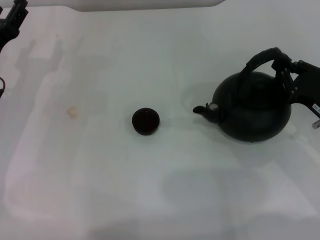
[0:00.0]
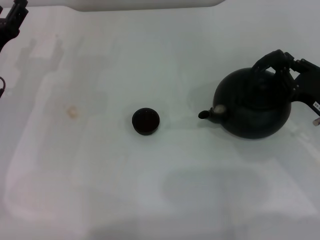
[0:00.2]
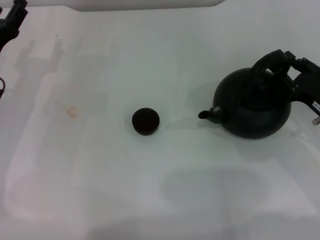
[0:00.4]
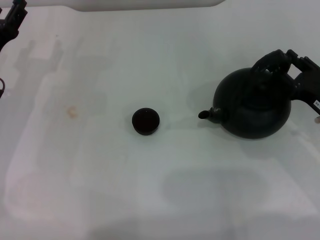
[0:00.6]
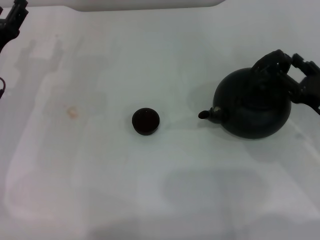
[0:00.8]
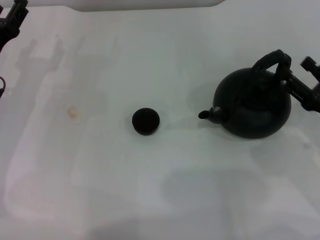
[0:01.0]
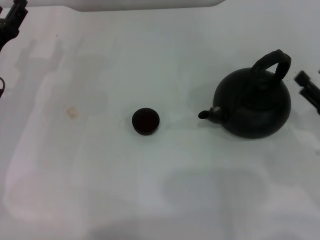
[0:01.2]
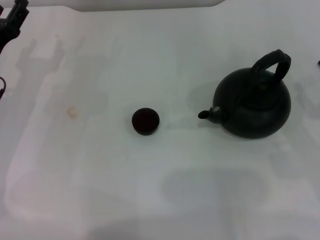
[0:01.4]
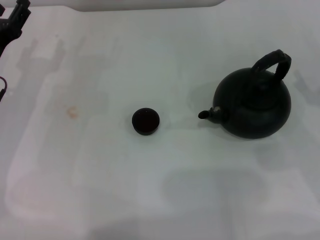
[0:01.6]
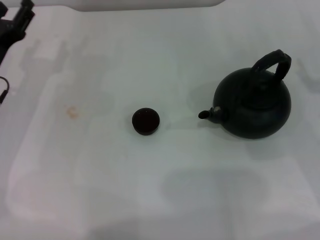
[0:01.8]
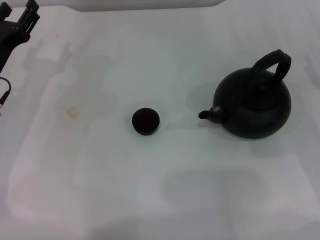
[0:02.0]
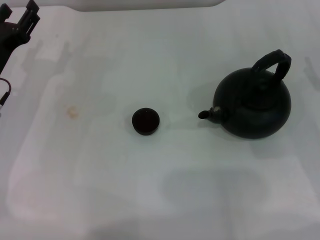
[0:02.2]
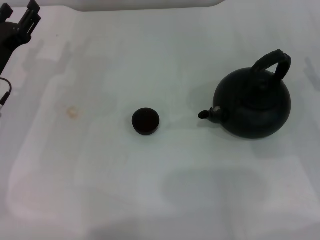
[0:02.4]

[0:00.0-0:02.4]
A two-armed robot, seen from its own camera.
Task of the whole recording: Grasp the handle of the teapot with one hand and pour tea into the teacup.
0:00.0 to 0:01.2: The right gripper shifts by about 5 cm, and opens up.
0:01.2 to 0:02.4: The right gripper travels forward by about 5 cm.

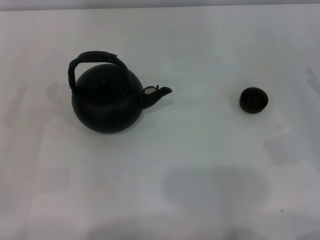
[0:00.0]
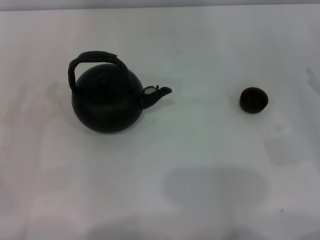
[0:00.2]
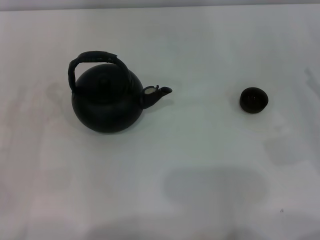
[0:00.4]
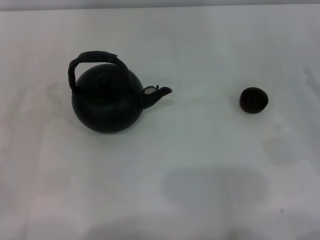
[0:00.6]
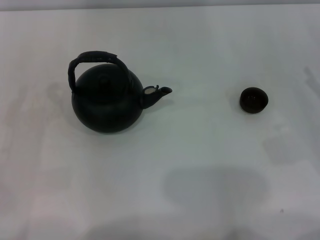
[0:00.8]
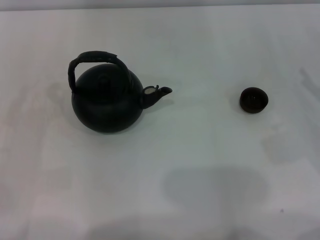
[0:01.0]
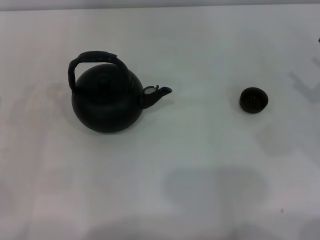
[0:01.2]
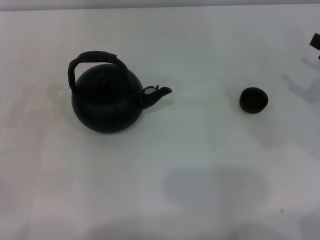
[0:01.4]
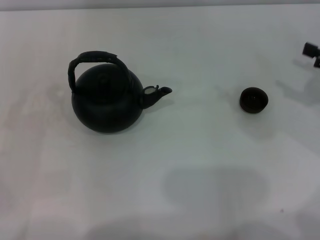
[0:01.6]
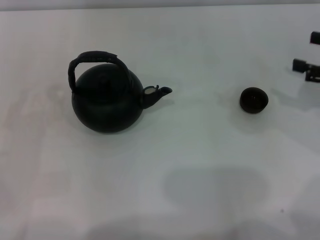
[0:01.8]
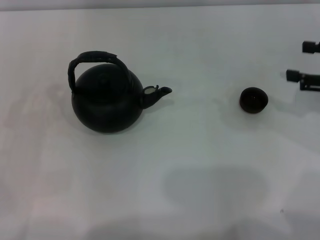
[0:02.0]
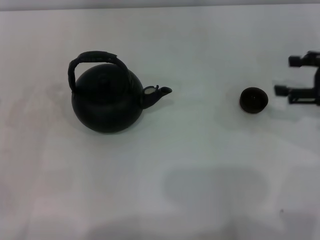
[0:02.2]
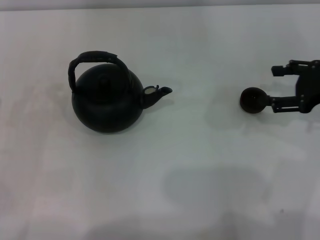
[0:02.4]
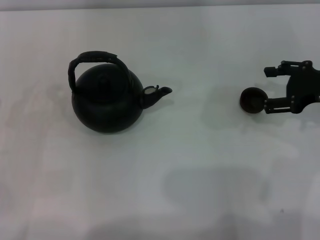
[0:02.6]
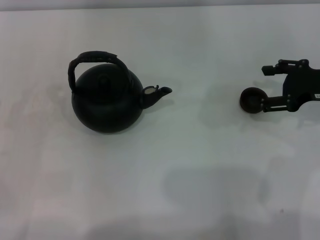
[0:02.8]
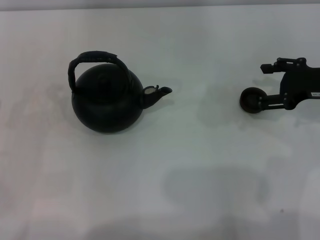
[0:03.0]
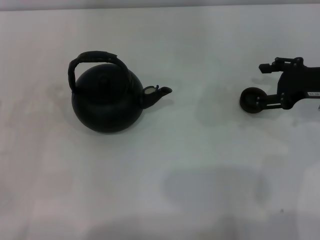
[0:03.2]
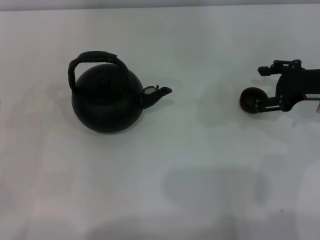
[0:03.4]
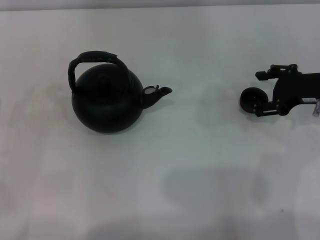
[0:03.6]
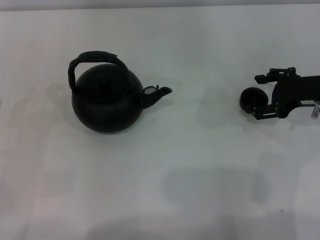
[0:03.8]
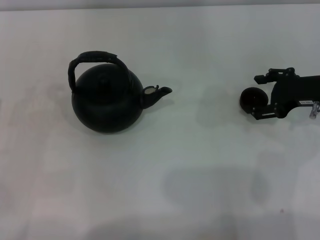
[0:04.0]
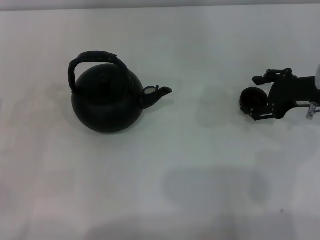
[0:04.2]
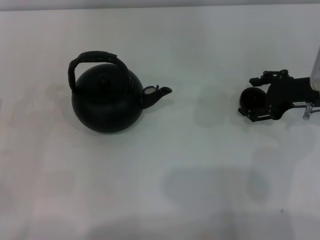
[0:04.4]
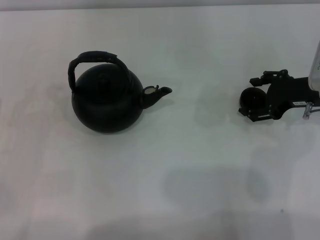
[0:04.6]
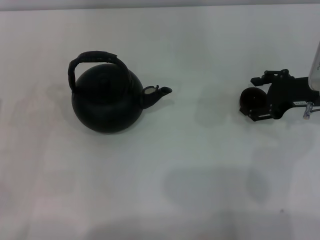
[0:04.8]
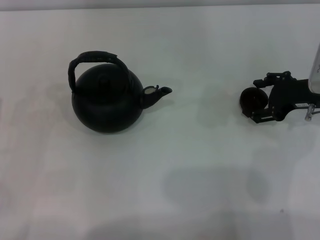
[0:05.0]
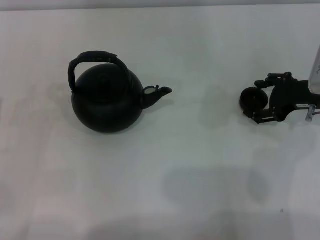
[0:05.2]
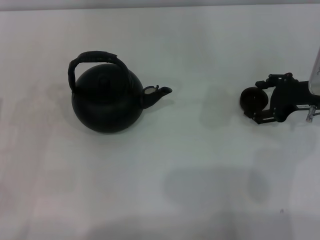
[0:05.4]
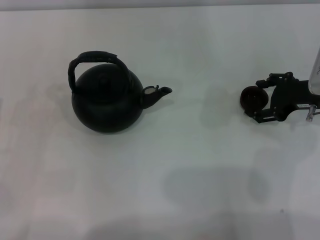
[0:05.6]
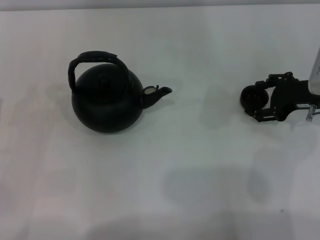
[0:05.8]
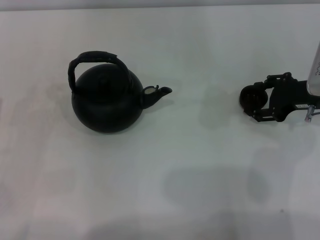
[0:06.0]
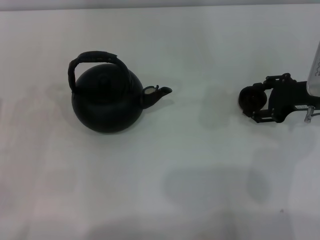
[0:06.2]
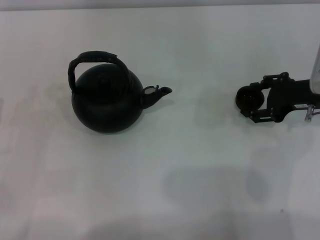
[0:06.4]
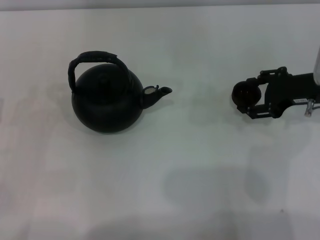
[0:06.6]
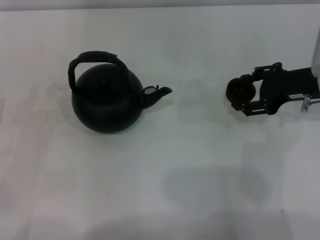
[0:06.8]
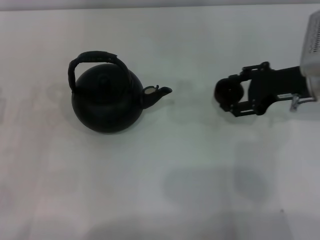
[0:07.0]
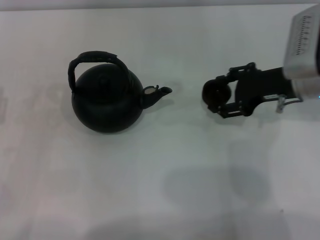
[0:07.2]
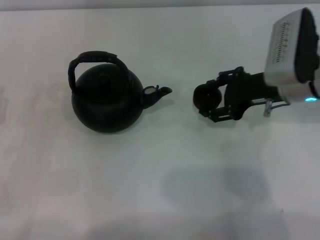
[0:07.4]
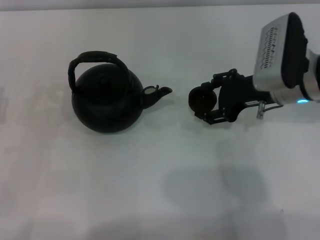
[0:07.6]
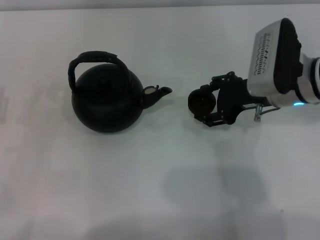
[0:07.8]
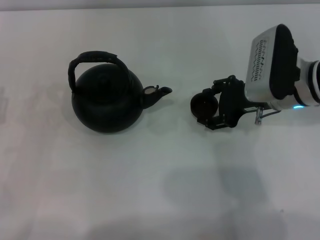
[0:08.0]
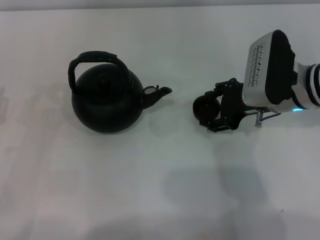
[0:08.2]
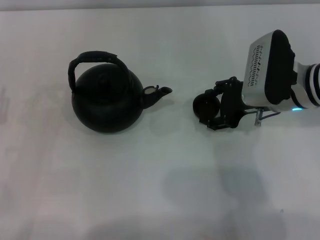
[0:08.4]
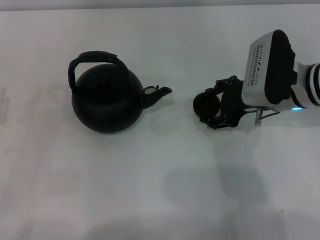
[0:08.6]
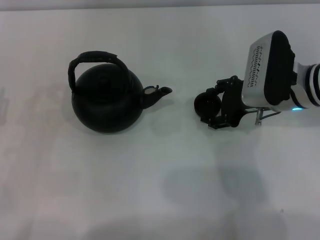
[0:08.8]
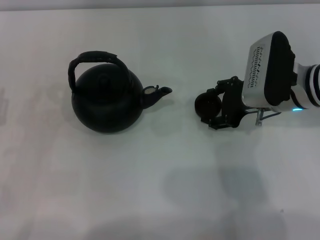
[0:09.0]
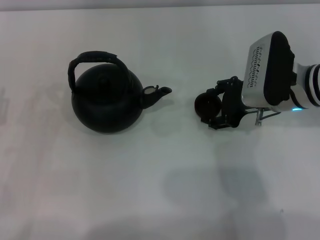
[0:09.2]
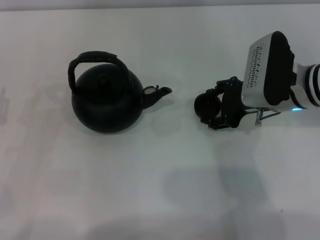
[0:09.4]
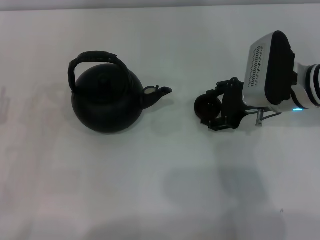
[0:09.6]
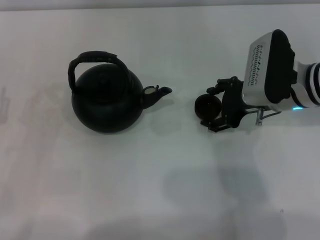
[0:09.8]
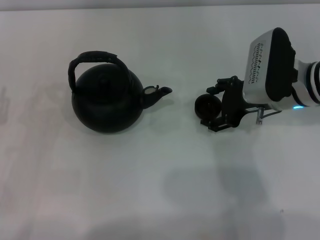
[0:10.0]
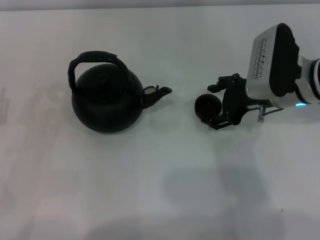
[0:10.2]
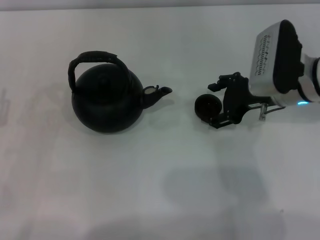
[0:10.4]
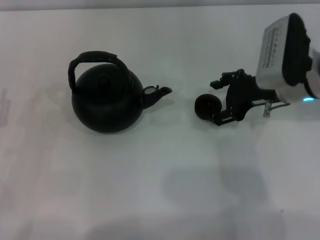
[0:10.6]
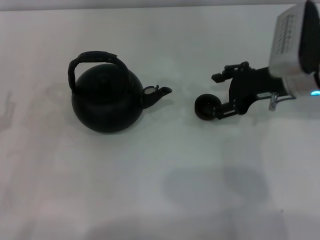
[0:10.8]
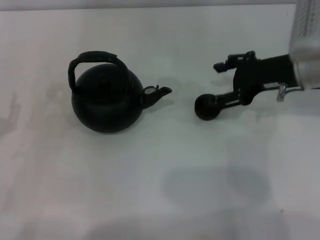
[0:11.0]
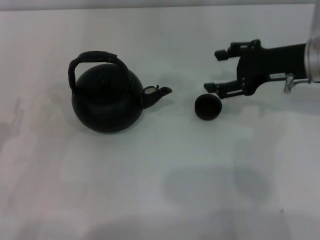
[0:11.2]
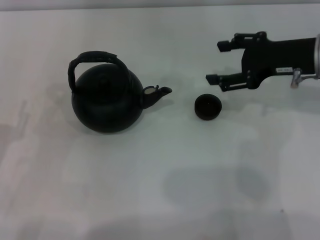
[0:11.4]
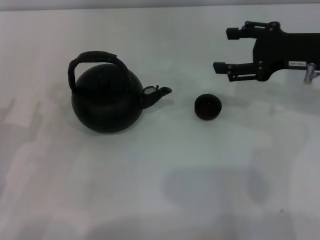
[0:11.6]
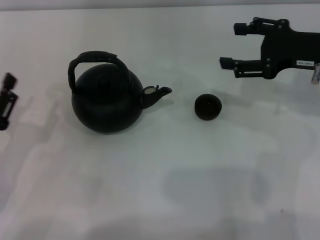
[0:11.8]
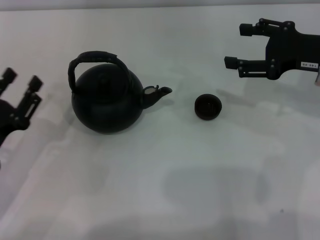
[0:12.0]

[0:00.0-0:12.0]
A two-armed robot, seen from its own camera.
Task of the whole recording: Grasp the handle of the teapot with one hand and pour tea into the teacup.
Step, 0:00.0 to 0:06.6: Pick up the teacup with the right gripper.
Step, 0:07.0 to 0:11.2: Place the teacup in the center of view with the right gripper.
0:01.6 to 0:03.0: The right gripper goes some 5 cm to the left.
0:03.0 to 0:04.4: The grippers make only small movements.
0:04.4 to 0:06.0: The right gripper closes.
0:06.0 to 0:07.6: The right gripper heads to the left, covering some 10 cm, and closes its fingers.
0:07.6 to 0:09.0: The grippers stay close to where they were, moving slightly.
0:09.0 to 0:10.4: The right gripper opens its fingers.
0:10.4 to 0:12.0: The right gripper moves to the right, approximately 10 cm.

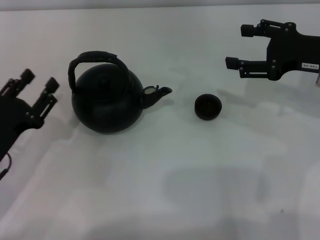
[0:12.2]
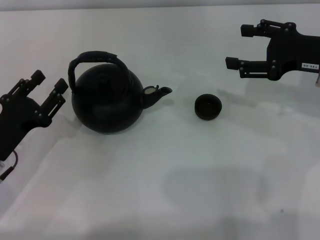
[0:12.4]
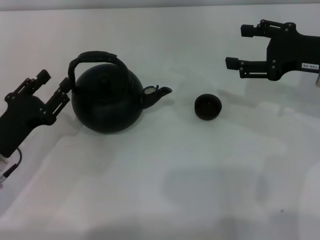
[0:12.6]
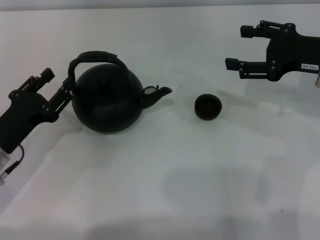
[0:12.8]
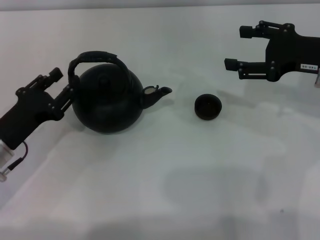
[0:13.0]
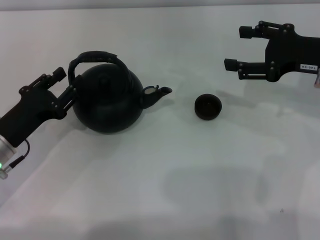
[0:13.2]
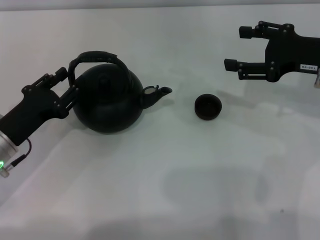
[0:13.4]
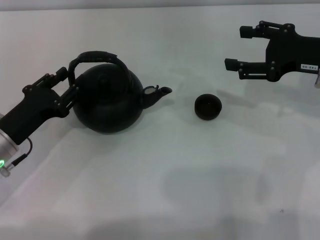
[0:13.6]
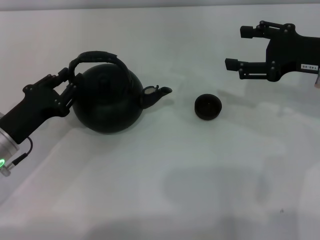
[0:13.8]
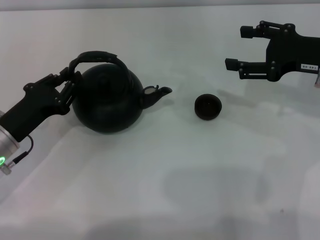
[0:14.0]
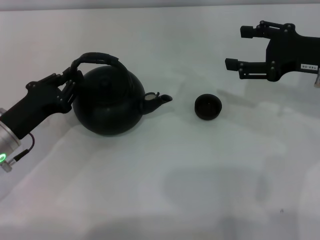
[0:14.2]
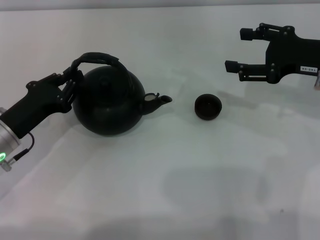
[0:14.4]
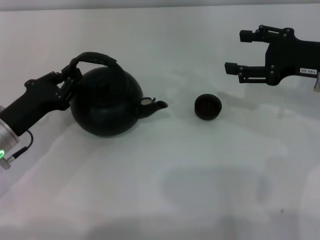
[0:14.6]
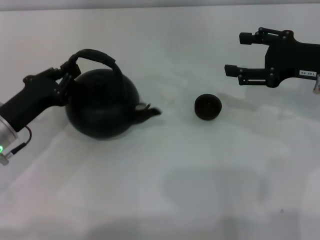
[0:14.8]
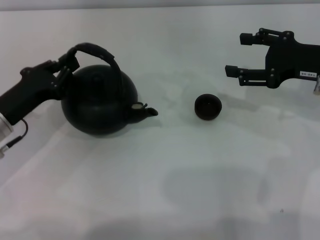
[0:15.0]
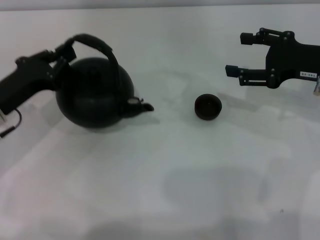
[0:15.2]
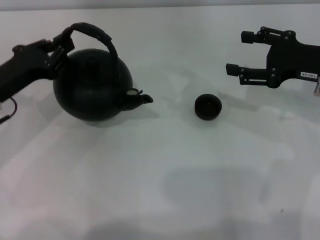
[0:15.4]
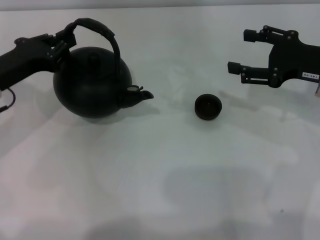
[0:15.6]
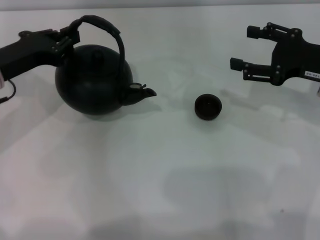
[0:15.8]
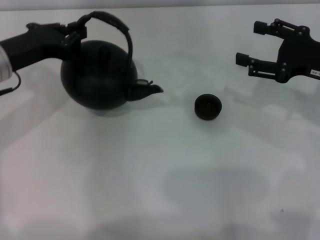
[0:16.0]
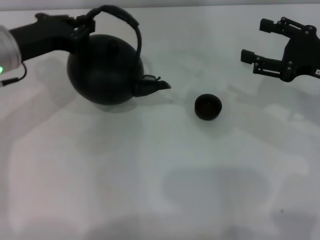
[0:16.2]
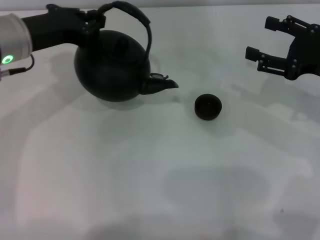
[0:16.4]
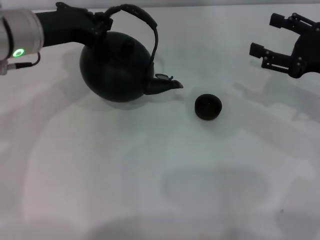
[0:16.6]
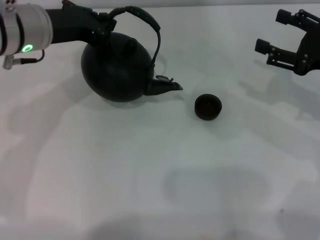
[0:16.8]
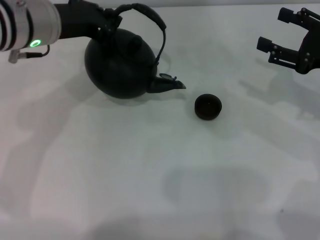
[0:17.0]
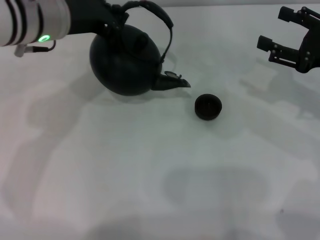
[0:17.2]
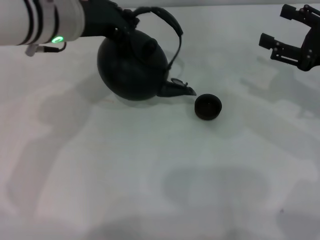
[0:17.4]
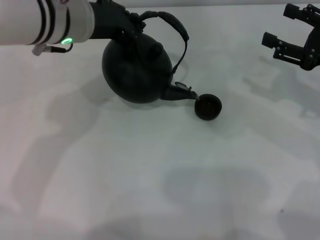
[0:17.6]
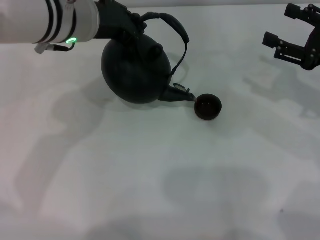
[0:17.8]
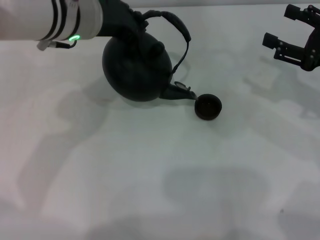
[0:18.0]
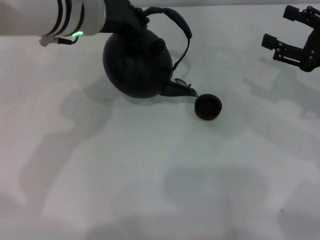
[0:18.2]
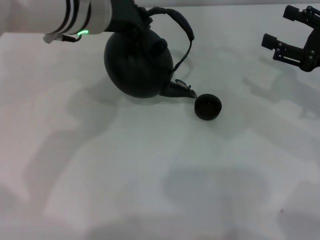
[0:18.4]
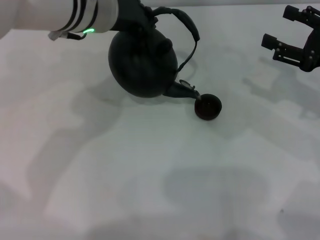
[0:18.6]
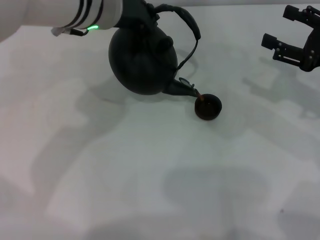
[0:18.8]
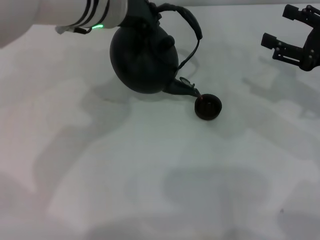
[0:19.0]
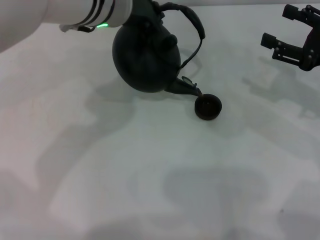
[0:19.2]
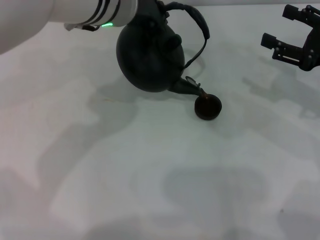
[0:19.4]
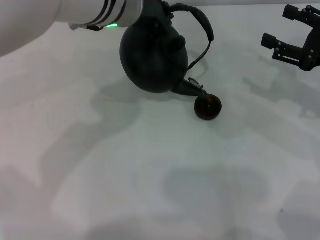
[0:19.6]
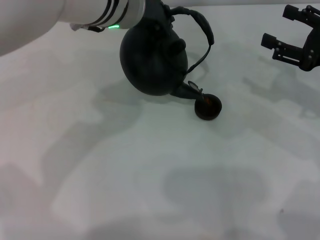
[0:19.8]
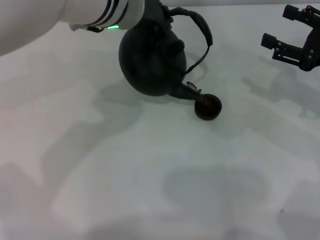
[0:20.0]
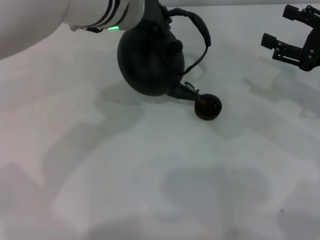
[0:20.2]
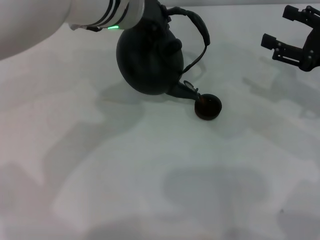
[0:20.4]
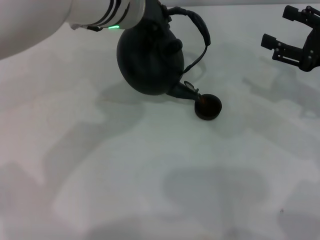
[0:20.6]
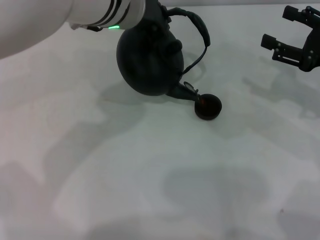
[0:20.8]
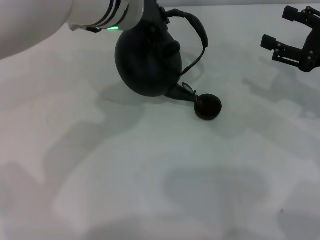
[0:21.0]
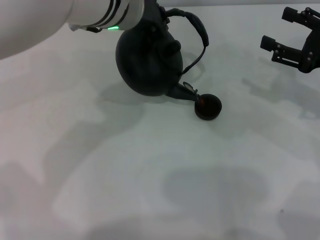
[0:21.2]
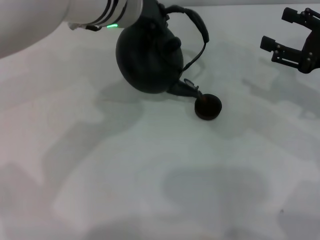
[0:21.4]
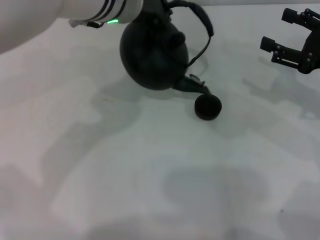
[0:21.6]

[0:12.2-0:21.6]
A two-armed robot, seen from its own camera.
Task of the whole recording: Grasp the handle of the teapot with one hand and pour tea into the teacup.
Step, 0:12.2 to 0:15.4: Pick up the teapot with the left gripper.
0:12.2 to 0:13.8: The grippers move only a little.
0:13.8 to 0:15.4: The left gripper travels upward by about 5 cm, and closes.
0:15.4 to 0:17.0: The left gripper heads to the right, upward and forward, covering about 15 cm.
0:17.0 to 0:18.4: The left gripper goes about 5 cm to the right.
0:18.4 to 0:20.0: There are only small adjustments of the grippers.
0:20.0 to 0:21.6: Neither gripper changes place.
